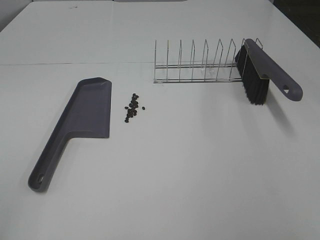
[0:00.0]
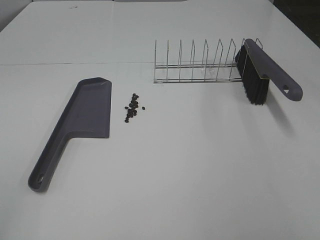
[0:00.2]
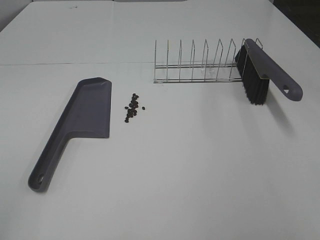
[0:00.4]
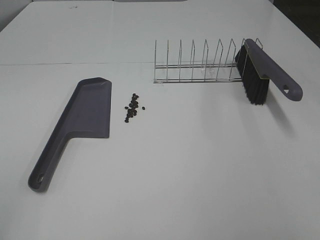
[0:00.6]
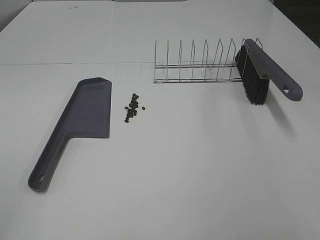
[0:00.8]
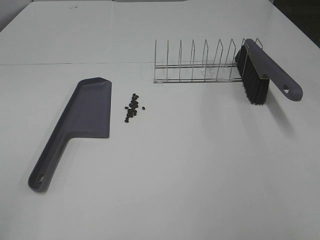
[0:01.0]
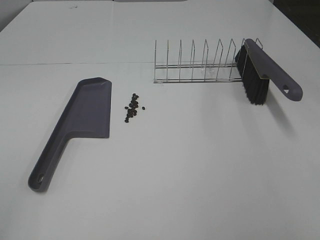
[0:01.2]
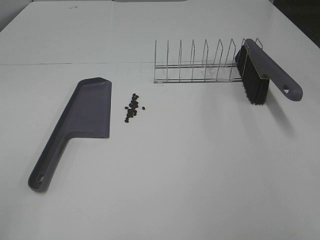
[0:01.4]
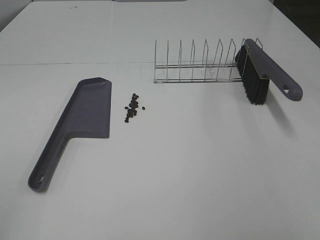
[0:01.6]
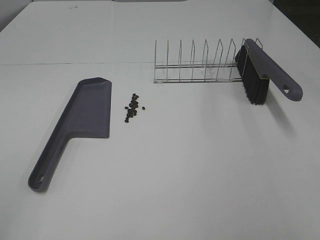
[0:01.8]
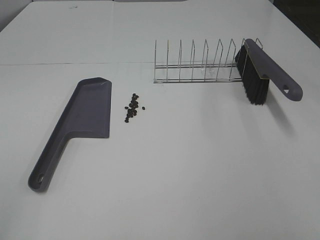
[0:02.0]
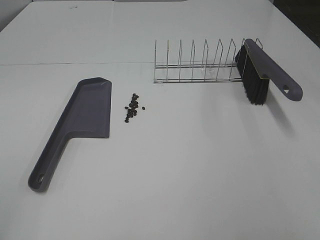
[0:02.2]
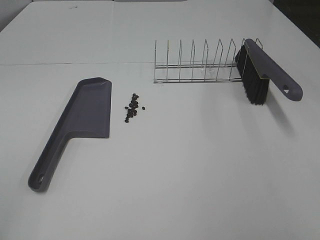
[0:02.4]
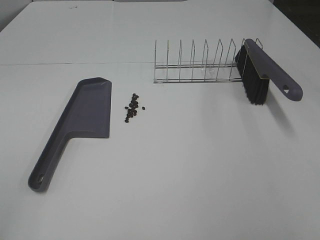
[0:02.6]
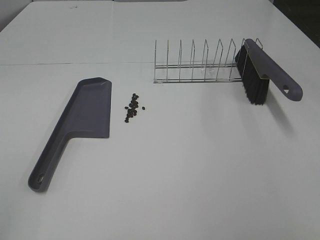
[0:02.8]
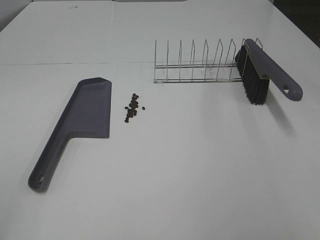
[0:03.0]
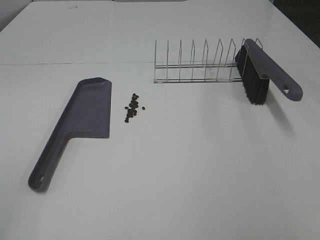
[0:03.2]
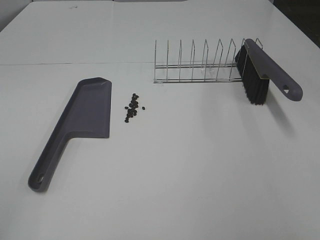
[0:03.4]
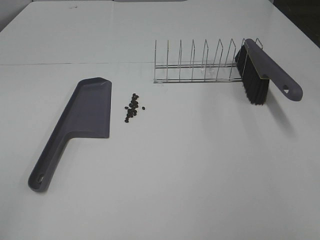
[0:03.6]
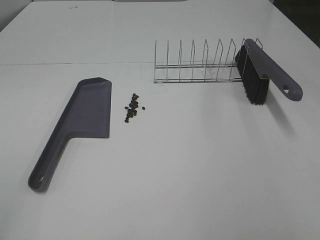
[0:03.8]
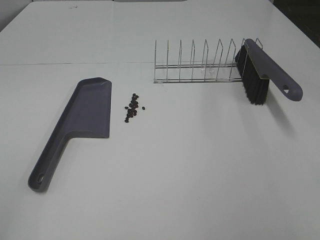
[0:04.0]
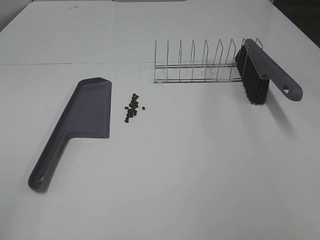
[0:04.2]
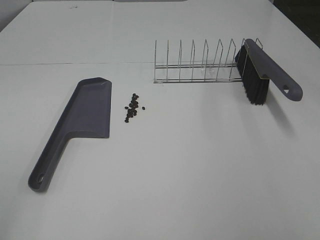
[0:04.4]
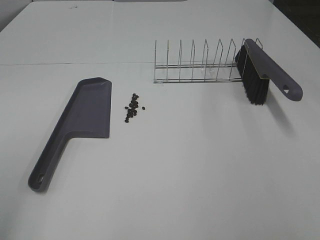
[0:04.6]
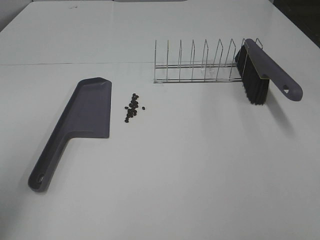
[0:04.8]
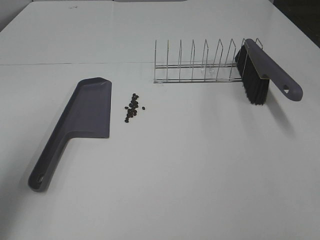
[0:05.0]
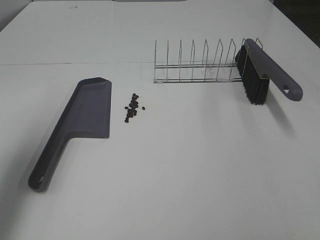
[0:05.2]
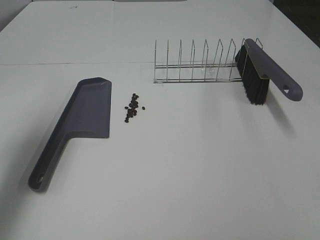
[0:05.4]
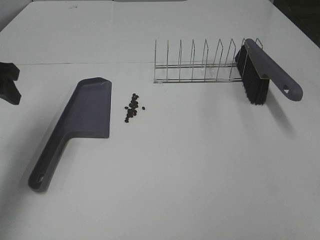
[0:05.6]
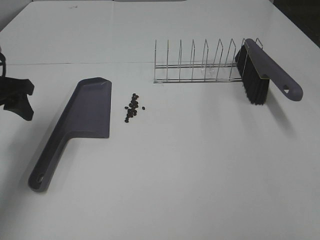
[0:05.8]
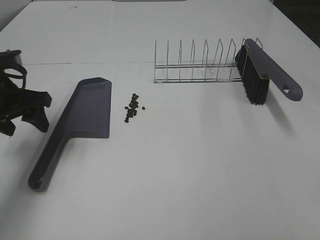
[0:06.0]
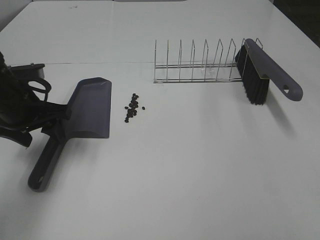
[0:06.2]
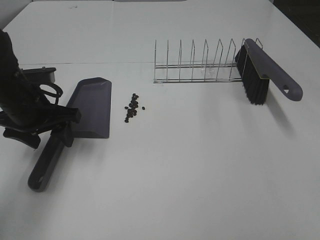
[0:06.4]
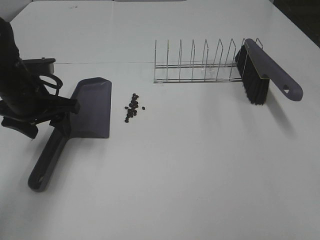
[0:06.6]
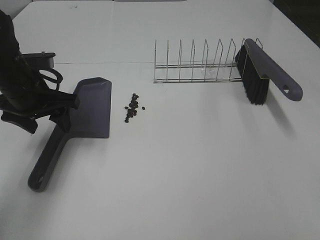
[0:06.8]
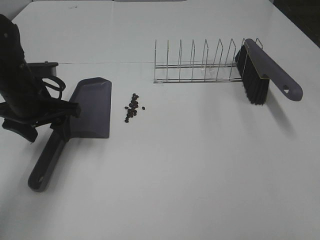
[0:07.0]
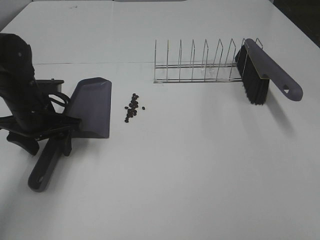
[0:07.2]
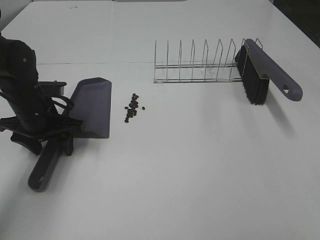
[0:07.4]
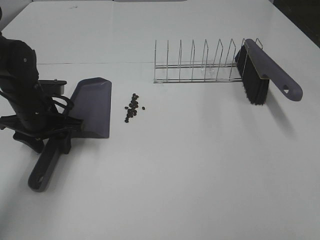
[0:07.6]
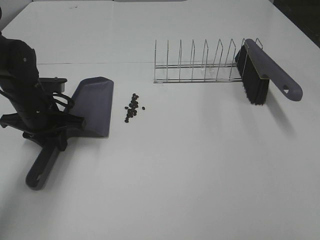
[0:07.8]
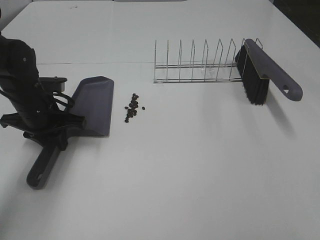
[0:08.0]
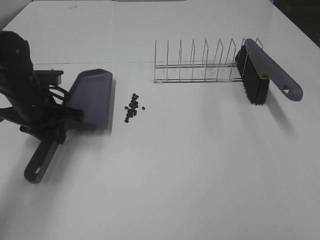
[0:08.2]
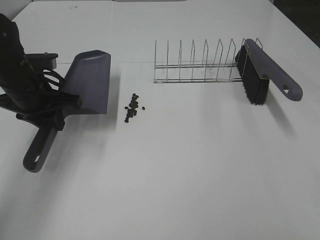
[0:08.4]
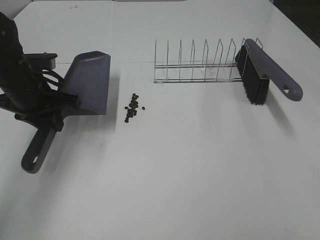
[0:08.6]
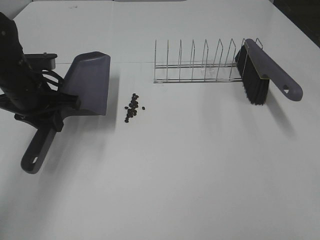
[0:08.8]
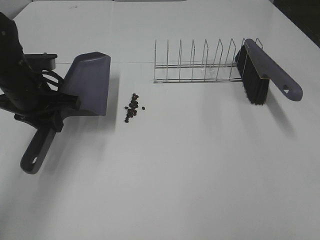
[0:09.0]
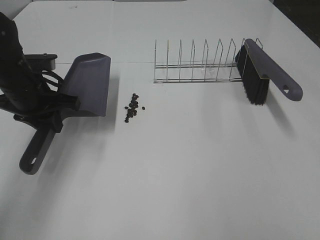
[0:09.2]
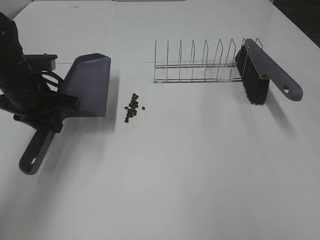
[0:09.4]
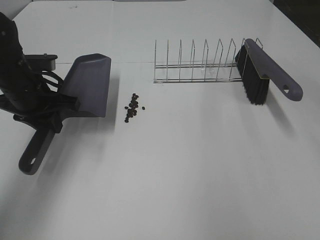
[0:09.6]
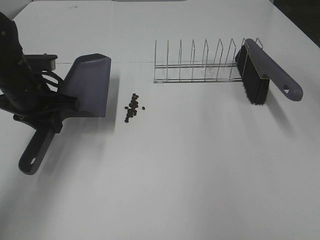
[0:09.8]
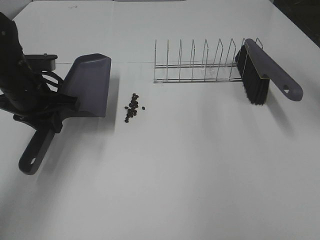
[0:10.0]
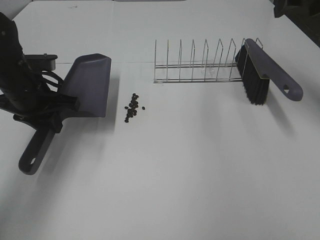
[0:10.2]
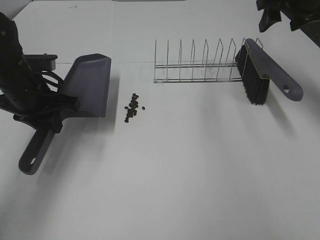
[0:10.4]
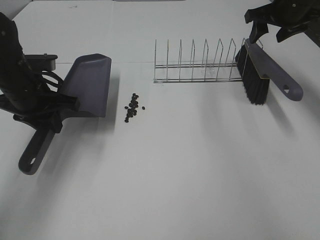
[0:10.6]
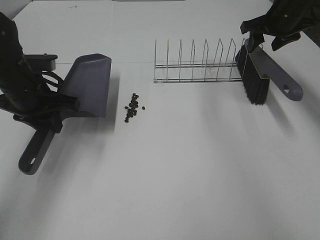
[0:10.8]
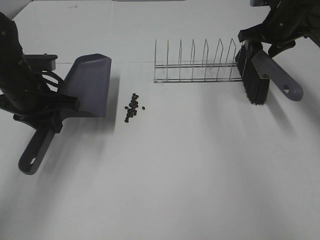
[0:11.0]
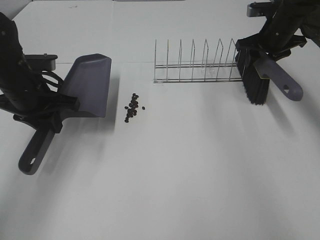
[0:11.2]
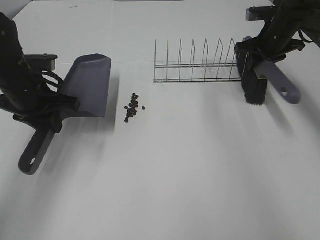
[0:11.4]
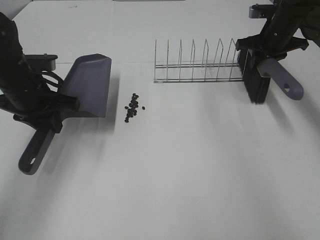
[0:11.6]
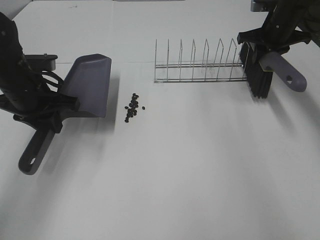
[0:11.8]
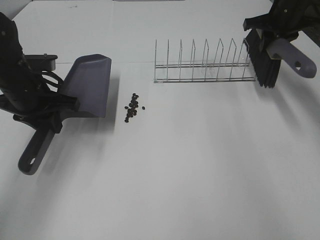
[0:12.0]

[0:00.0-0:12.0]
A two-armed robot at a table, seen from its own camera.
Task of the whole recording: Sweep Coffee Bean.
Step, 0:00.0 to 0:07.8: Left hand: grab the dustpan.
Step, 0:08.8 to 0:11.4: Right hand:grab the broom.
0:00.0 to 0:03.0: Both grippers stay put.
0:04.4 to 0:06.0: The left gripper shifts some 35 cm forward and downward.
0:06.0 to 0:07.6: The left gripper goes approximately 5 cm downward.
0:07.6 to 0:09.0: The left gripper moves upward, roughly 5 cm, and closes.
0:09.0 to 0:10.4: The right gripper goes roughly 40 cm forward.
0:10.4 to 0:12.0: The right gripper moves forward, roughly 5 cm, and closes up.

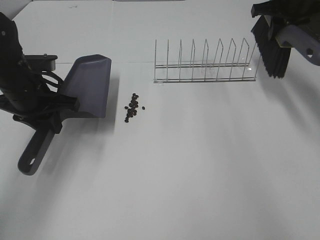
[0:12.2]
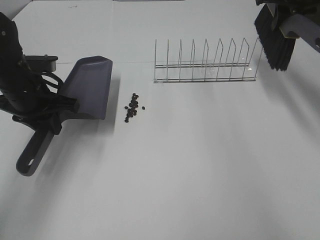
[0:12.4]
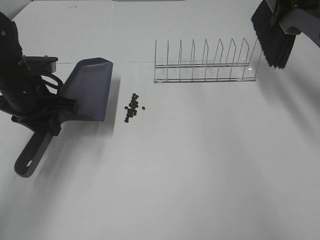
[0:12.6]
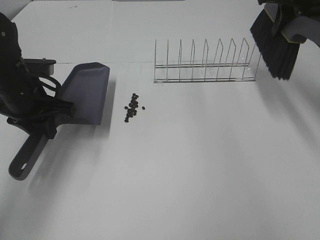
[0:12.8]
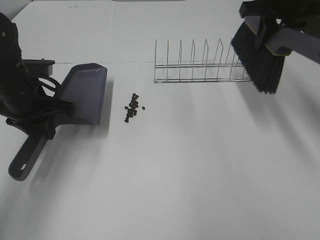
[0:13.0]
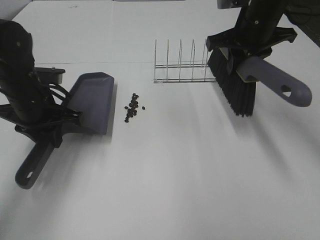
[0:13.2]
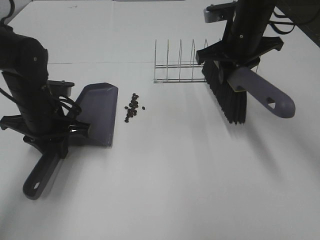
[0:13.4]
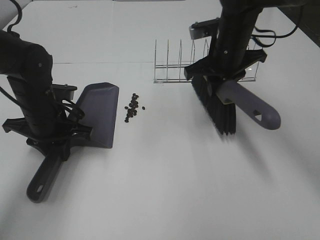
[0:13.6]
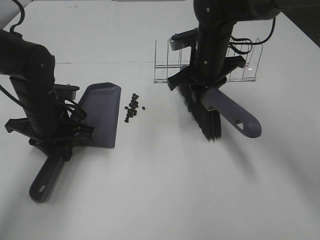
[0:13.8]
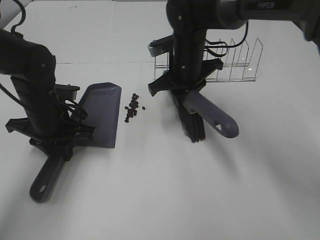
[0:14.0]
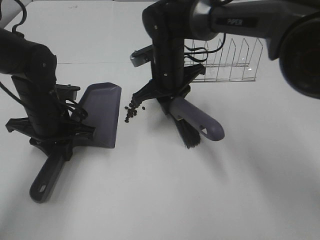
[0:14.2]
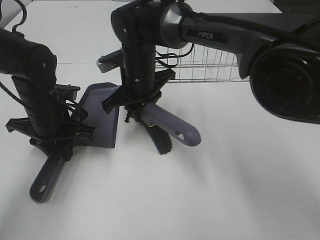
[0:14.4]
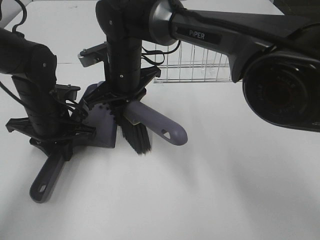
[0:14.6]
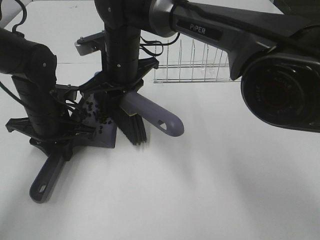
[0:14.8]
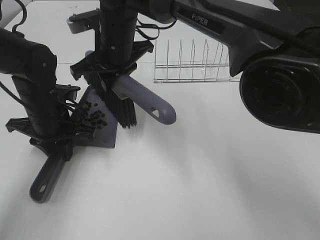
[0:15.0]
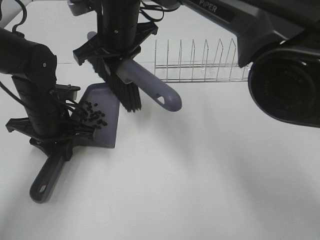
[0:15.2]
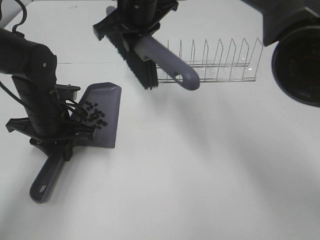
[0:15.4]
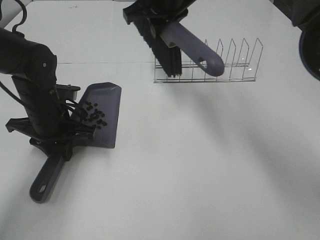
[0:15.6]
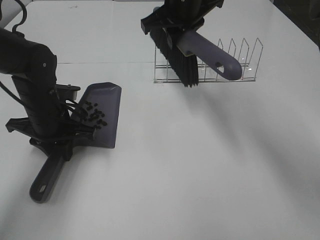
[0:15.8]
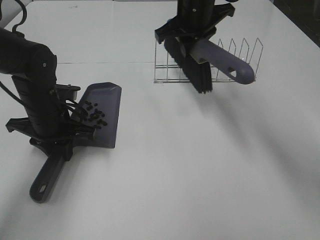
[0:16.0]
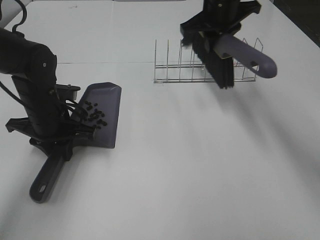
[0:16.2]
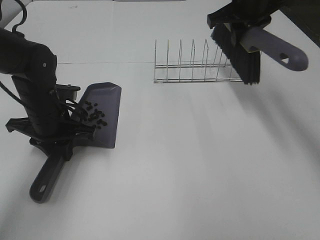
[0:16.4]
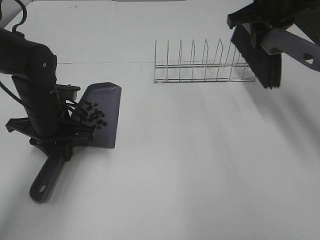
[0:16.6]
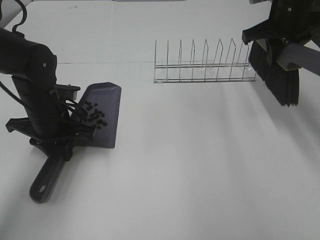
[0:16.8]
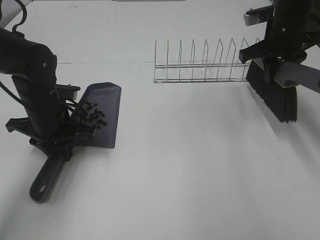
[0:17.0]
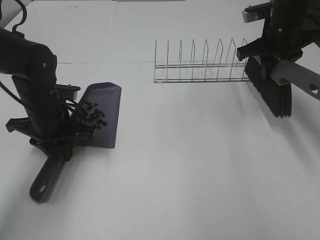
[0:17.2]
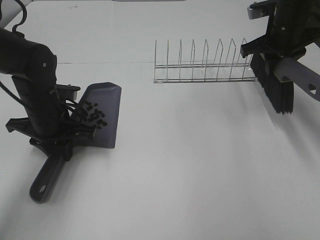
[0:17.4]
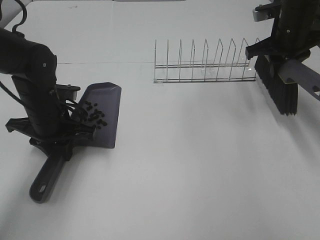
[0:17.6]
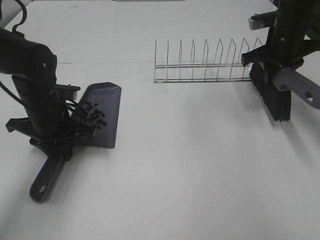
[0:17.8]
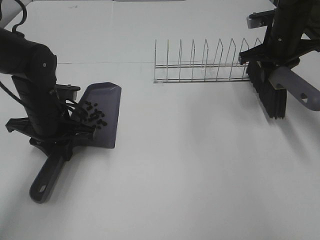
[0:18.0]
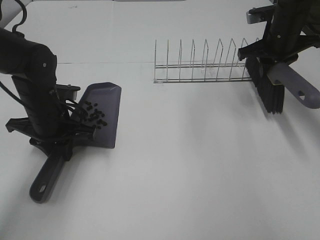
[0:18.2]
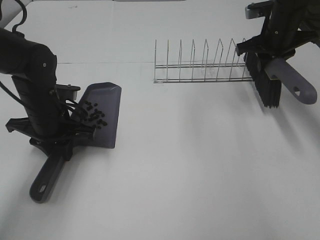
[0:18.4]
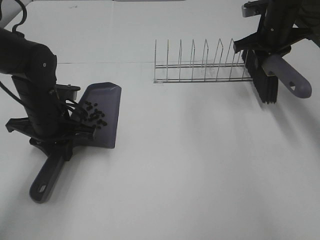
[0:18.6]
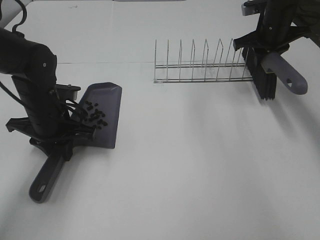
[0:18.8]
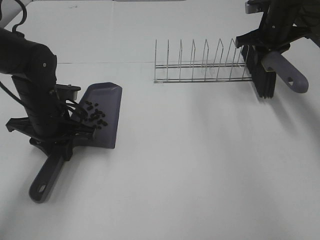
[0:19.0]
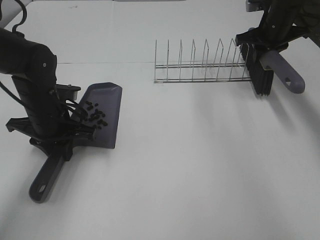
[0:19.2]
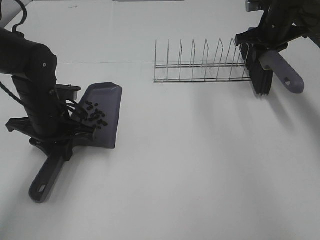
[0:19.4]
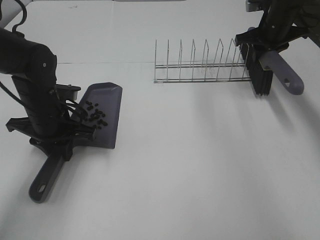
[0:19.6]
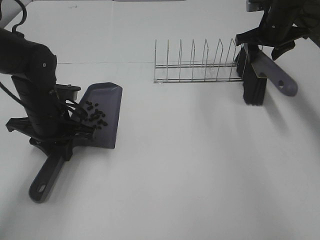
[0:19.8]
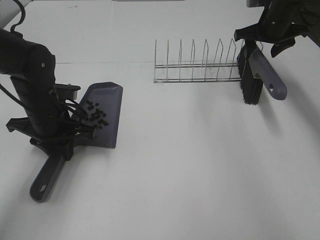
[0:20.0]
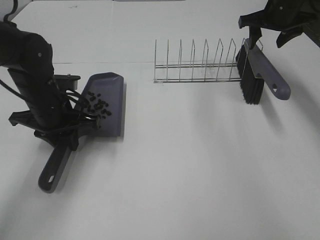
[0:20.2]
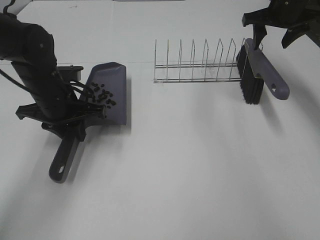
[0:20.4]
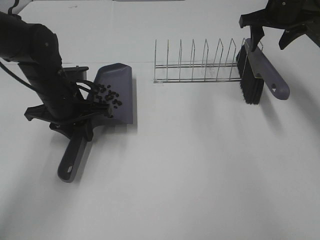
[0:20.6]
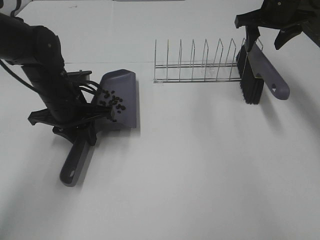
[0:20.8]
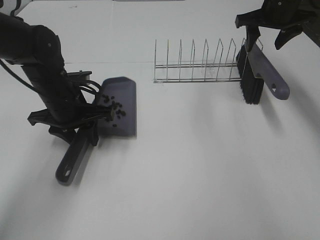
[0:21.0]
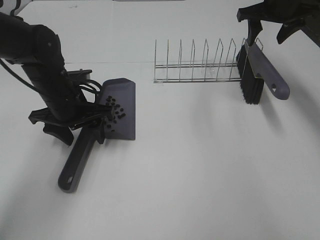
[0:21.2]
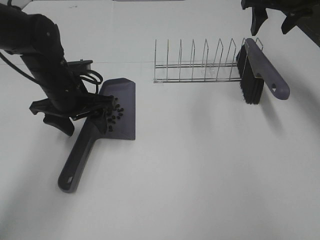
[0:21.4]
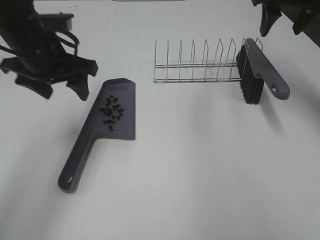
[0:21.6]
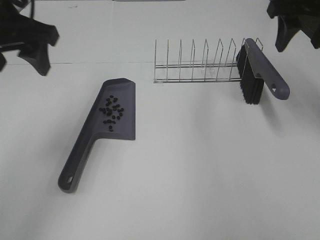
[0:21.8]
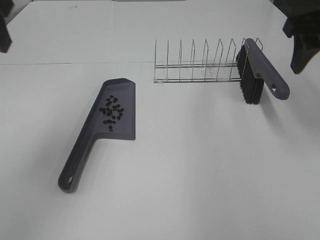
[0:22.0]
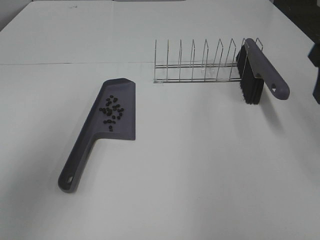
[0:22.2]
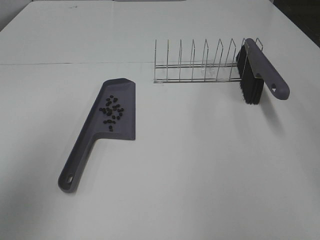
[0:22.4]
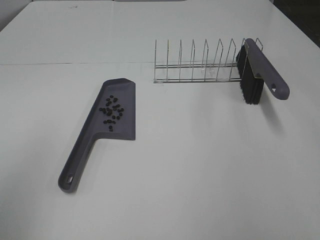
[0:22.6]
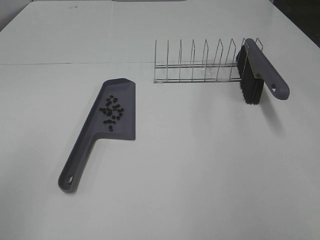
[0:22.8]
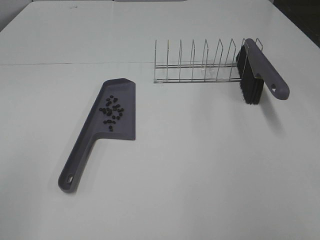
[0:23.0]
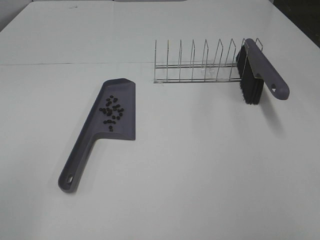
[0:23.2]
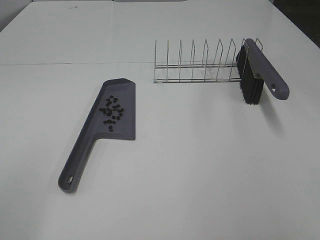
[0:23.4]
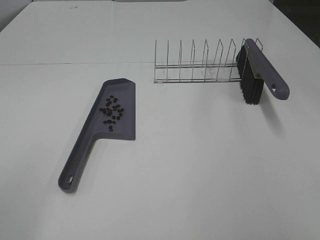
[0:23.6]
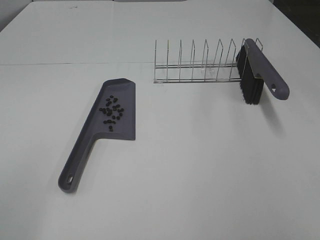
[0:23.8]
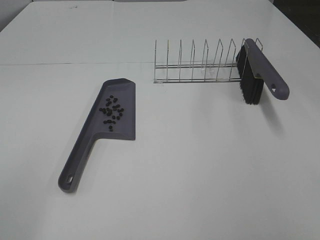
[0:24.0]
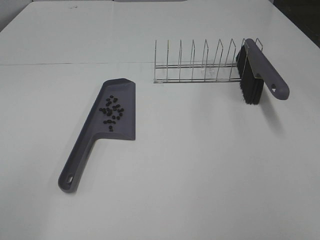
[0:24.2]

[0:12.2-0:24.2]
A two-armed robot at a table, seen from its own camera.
Task of the whole recording: Sweep Coffee Bean.
Step, 0:12.2 to 0:15.2: Right hand:sweep the coffee beans into the dustpan.
Step, 0:15.4 to 0:19.8: Right hand:place the broom on the rack.
Step, 0:20.0 to 0:21.2: Left hand:place the dustpan on the table.
0:12.2 to 0:13.8: The left gripper travels downward by about 5 cm. The right gripper is displaced to the left, downward and backward by about 25 cm.
0:13.8 to 0:15.2: The right gripper shifts roughly 15 cm to the left and upward.
0:15.2 to 0:16.6: The right gripper goes roughly 25 cm to the right.
0:16.6 to 0:18.2: The right gripper travels downward by about 10 cm.
0:18.2 to 0:19.8: The right gripper goes some 5 cm forward, and opens its fingers.
0:19.8 to 0:21.2: The left gripper opens, while the right gripper shifts some 10 cm upward.
0:21.2 to 0:22.6: The left gripper heads backward, upward and to the left, covering about 35 cm, while the right gripper heads backward, covering roughly 35 cm.
